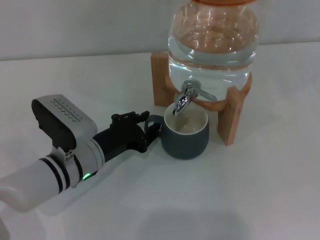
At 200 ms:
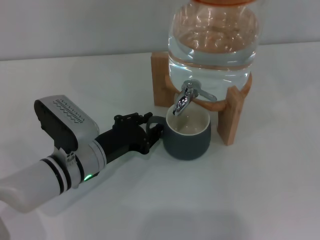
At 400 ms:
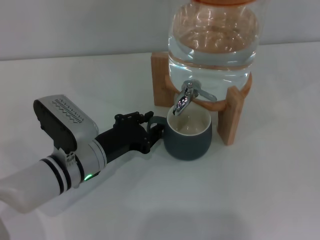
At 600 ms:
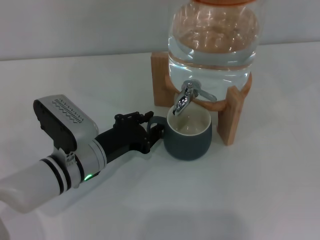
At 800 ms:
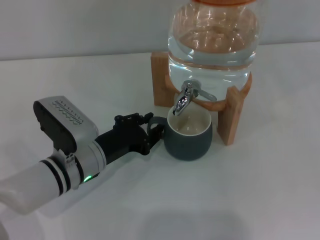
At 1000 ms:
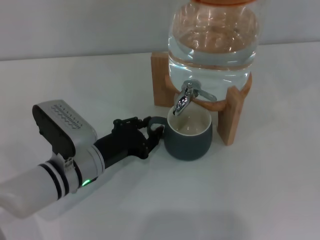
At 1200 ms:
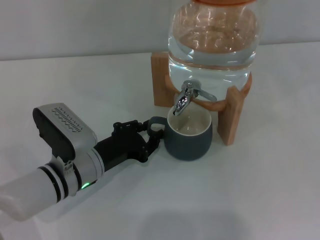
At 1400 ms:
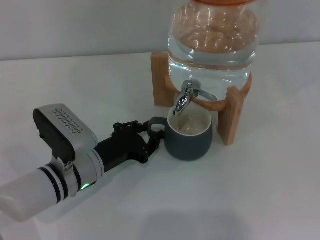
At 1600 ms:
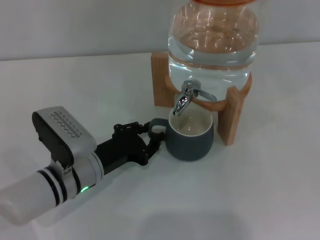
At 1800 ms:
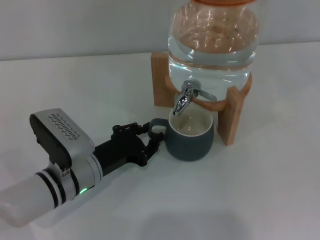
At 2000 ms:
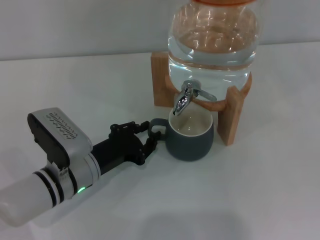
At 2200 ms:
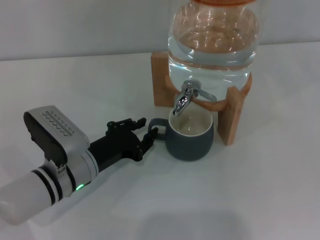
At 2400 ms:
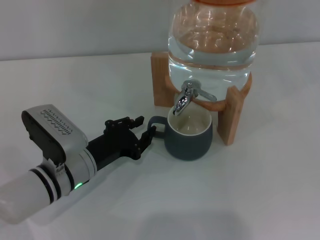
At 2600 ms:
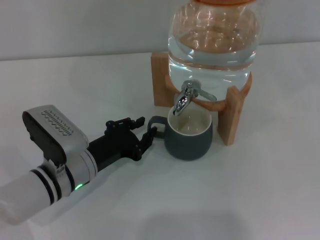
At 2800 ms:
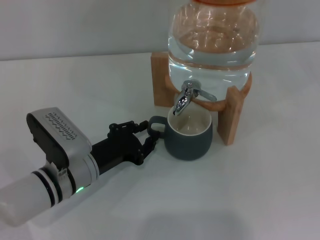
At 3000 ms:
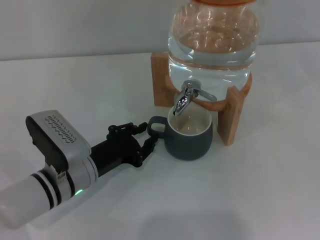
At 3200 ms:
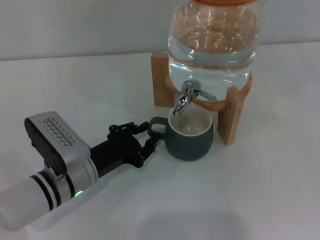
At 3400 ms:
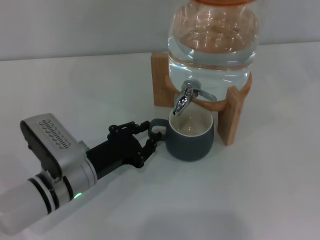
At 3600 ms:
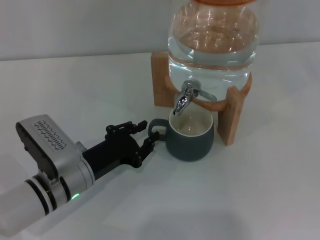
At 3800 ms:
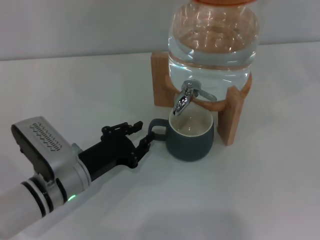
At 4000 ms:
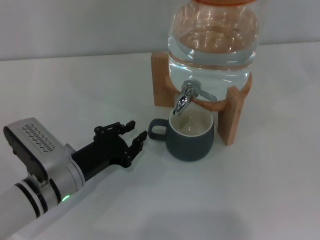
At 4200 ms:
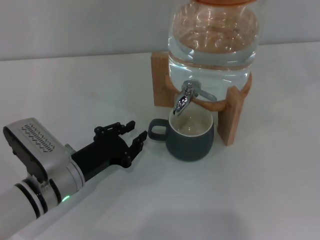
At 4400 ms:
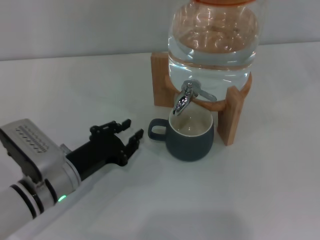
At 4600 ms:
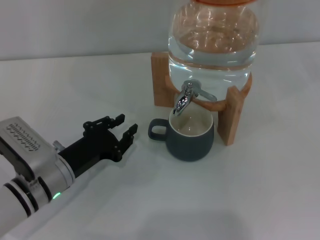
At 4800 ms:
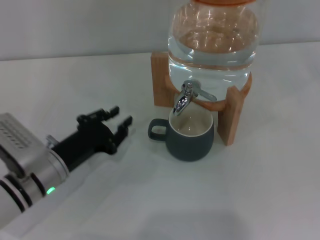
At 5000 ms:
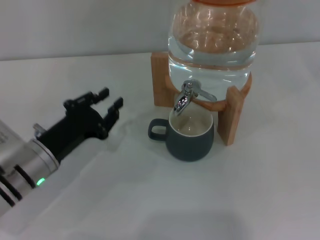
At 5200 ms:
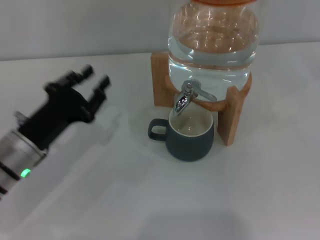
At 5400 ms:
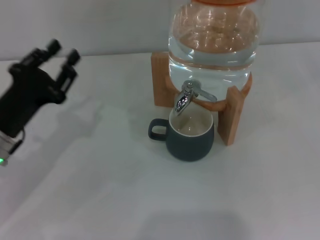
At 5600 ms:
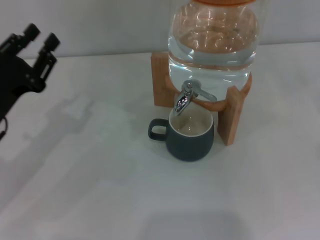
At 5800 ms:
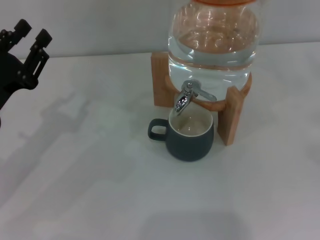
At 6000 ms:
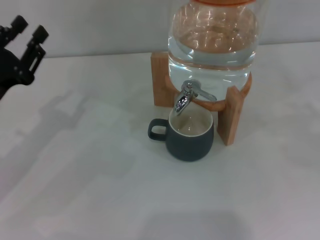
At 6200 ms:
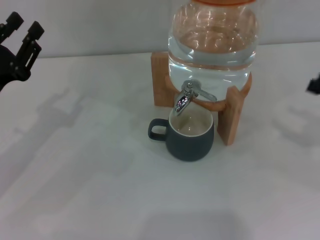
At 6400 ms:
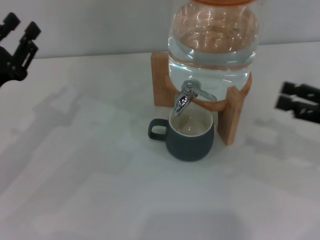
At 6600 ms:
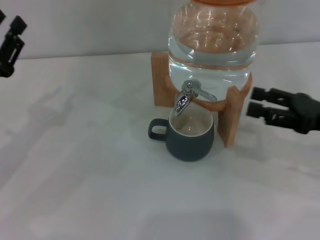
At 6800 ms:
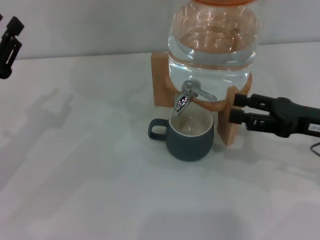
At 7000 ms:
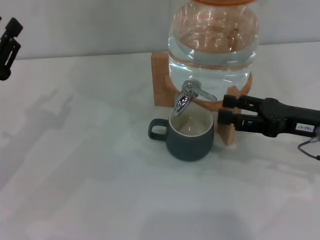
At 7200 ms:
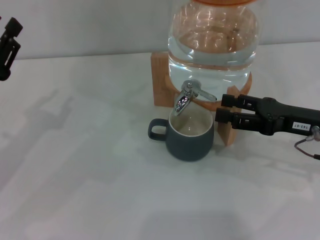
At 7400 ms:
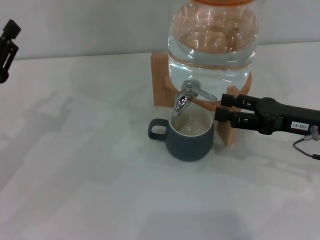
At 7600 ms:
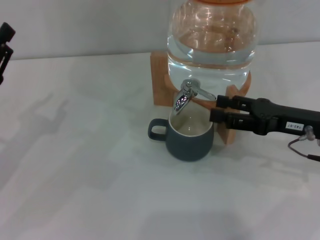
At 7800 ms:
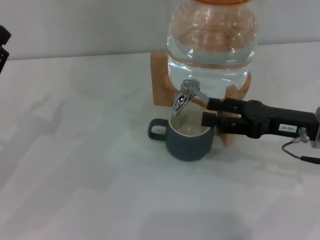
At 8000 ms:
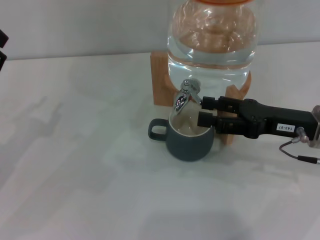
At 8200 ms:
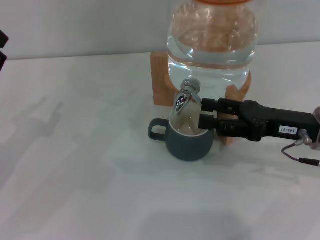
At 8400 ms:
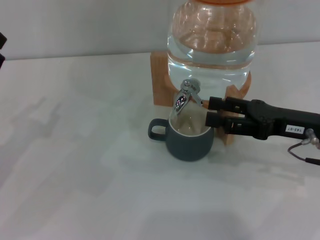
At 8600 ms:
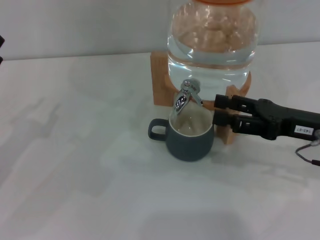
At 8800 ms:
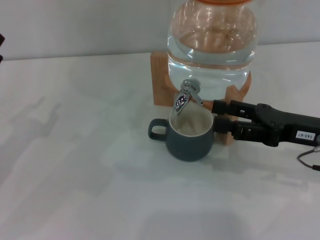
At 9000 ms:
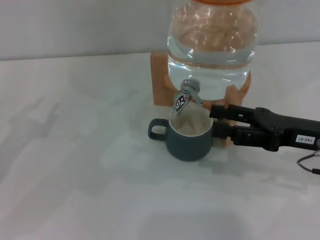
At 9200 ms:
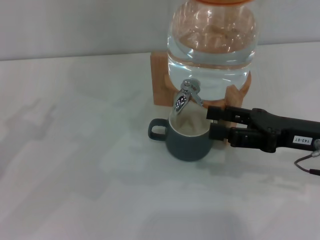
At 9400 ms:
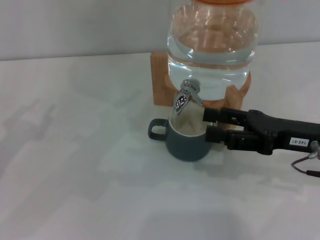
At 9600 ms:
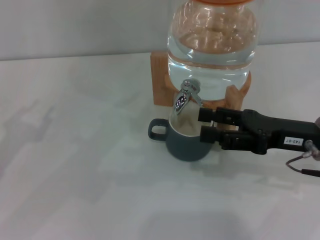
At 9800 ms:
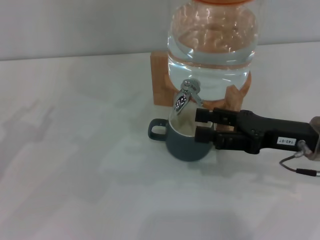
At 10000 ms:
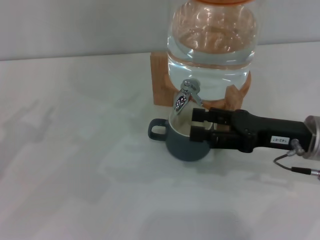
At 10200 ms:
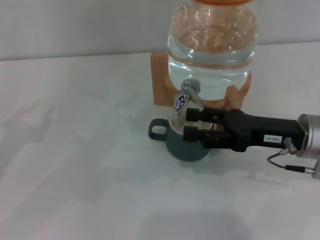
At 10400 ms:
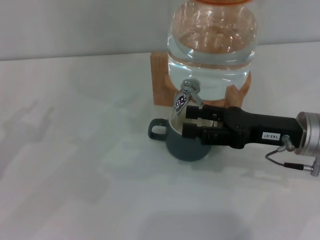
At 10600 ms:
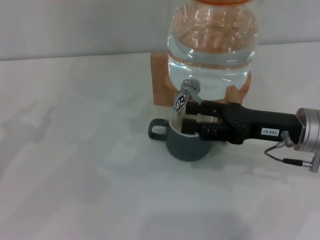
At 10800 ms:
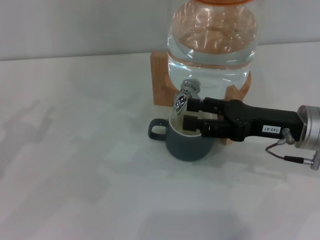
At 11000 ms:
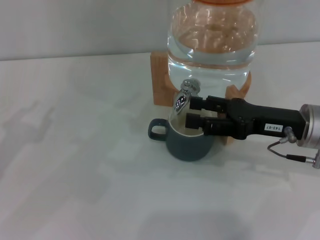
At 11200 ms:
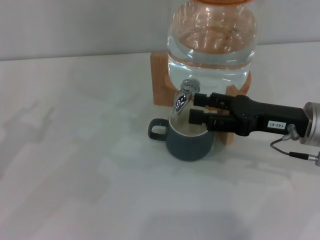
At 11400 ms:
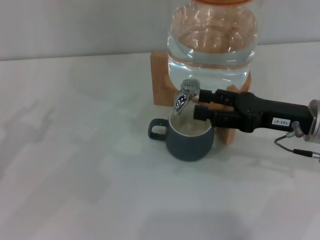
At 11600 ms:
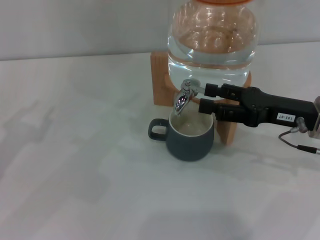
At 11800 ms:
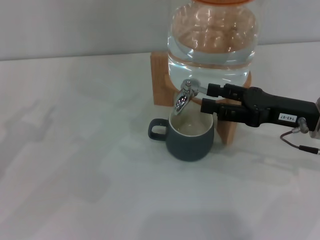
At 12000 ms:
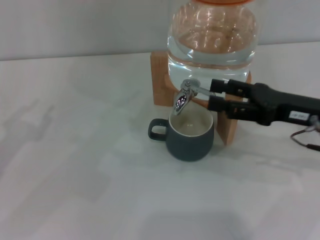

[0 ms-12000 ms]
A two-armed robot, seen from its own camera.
Task of the whole recording: the left gripper pick up the black cup and place it horizontally under the faucet, the right gripper turn on the faucet to fill the cup, and then turn off the faucet.
Step, 0 ms to 4400 ms: Move the cup beneath the water dispenser nozzle with the left gripper.
Step, 4600 ms to 9000 ms: Open the dispenser valve and fill the cup with water with the right gripper.
Step, 9200 ms to 12000 ms: Close the dispenser valve with the right gripper.
0 ms to 1600 ms: The grippers stay close to where they were, moving slightly.
1600 ms to 3000 ms: The two grippers keep their place.
3000 ms to 4400 ms: The grippers make only small movements.
4400 ms to 6000 ms: The left gripper heads to the left and upward, covering about 15 cm.
6000 ms to 7600 ms: The right gripper moves to the left, approximately 15 cm.
7600 ms to 12000 ms: The grippers move only a little.

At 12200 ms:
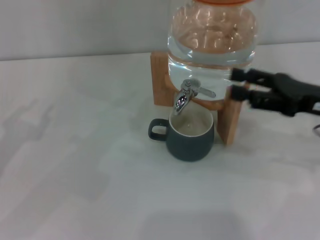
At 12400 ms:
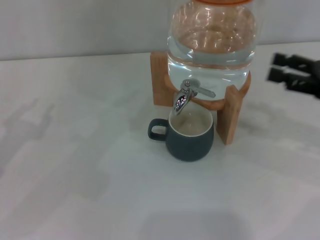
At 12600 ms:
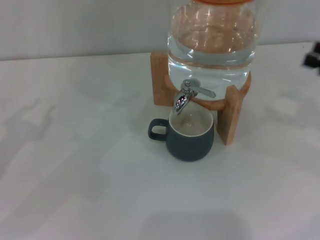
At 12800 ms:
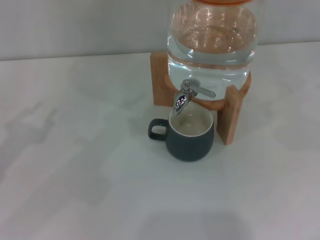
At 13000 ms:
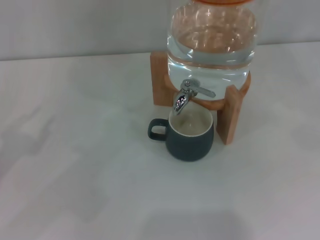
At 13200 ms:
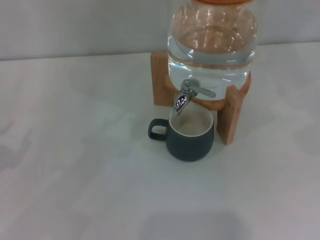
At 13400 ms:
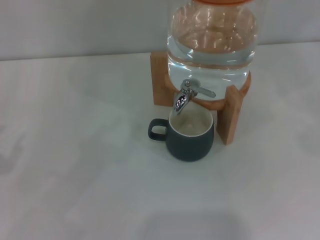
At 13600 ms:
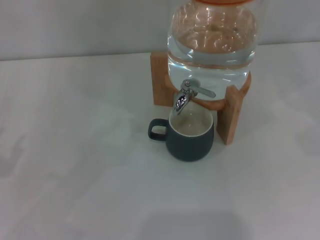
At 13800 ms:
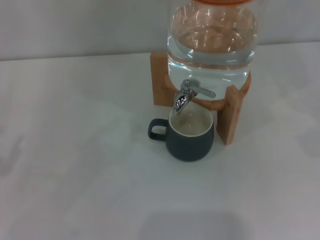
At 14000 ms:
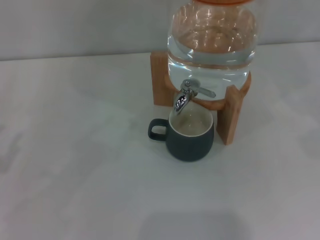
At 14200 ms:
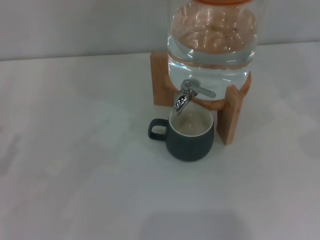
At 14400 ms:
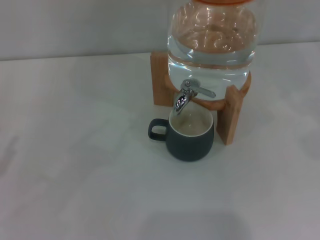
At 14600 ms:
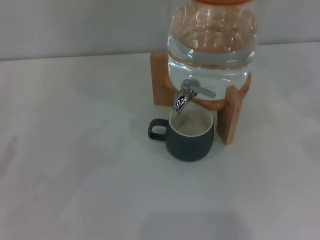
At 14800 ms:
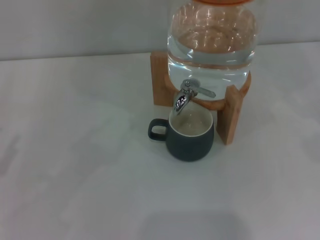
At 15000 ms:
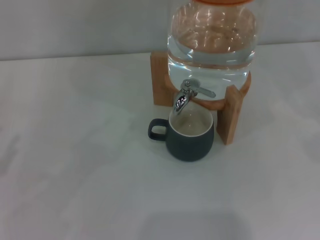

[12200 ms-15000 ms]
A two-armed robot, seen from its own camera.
Task of the whole recording: the left gripper pick up the black cup and place it horizontally under the faucet, the right gripper turn on the faucet to fill the cup, and then turn off the faucet.
12200 ms to 13600 ms: The right gripper goes roughly 20 cm to the right.
